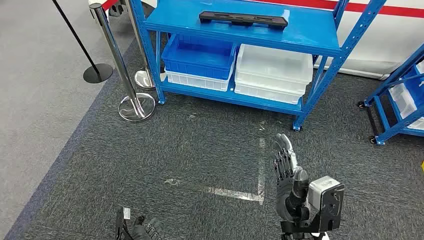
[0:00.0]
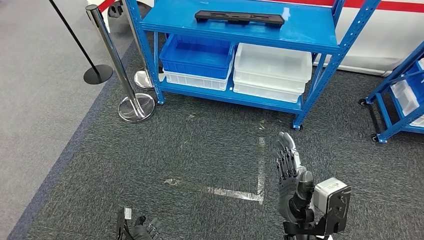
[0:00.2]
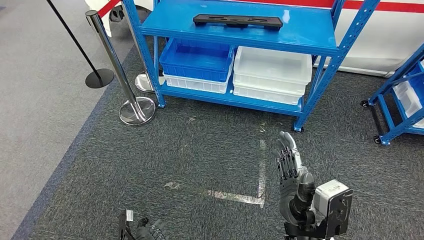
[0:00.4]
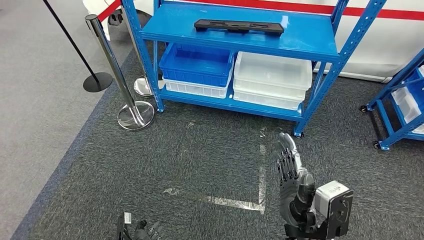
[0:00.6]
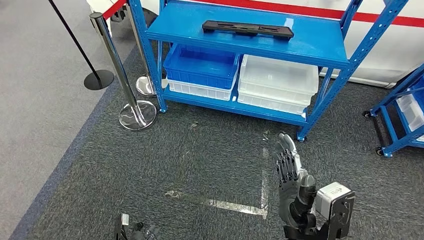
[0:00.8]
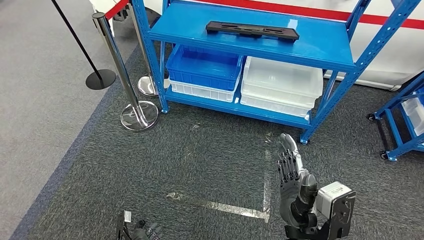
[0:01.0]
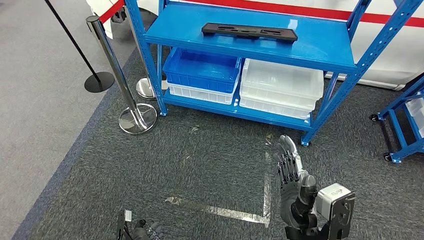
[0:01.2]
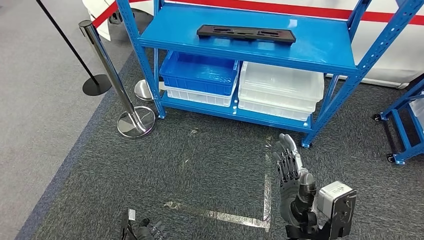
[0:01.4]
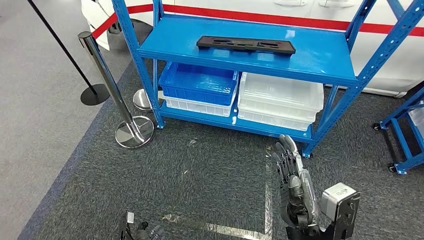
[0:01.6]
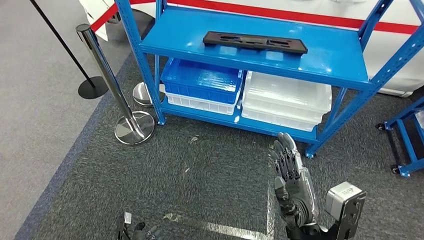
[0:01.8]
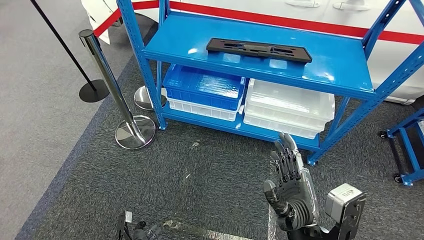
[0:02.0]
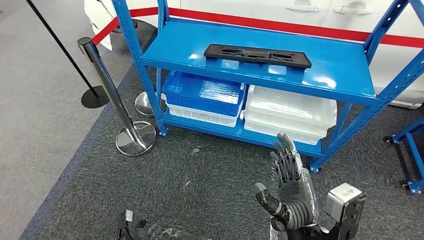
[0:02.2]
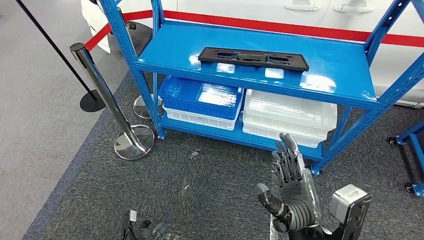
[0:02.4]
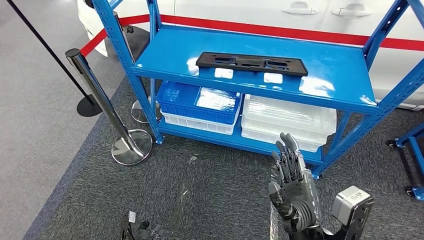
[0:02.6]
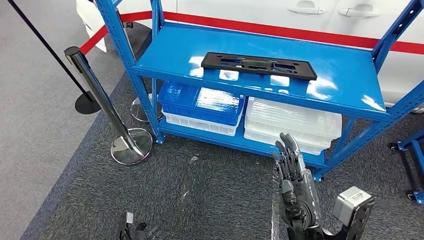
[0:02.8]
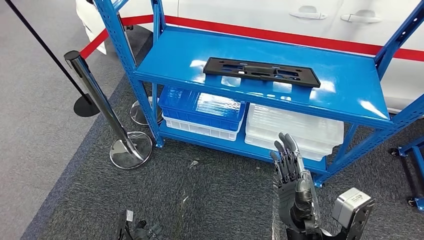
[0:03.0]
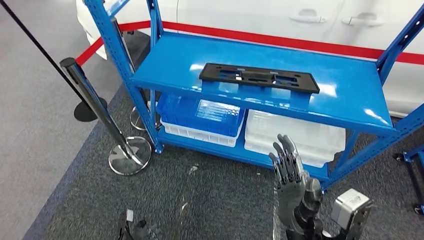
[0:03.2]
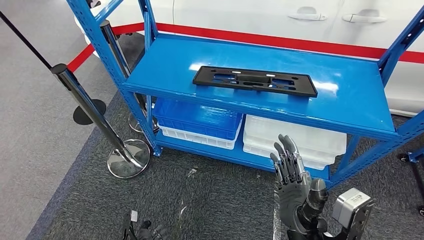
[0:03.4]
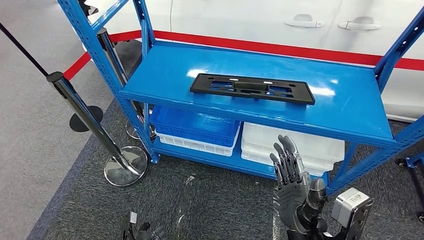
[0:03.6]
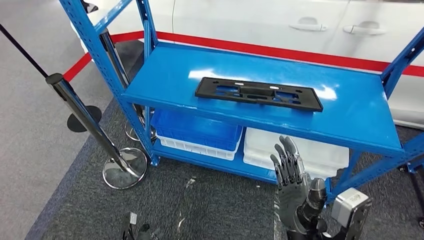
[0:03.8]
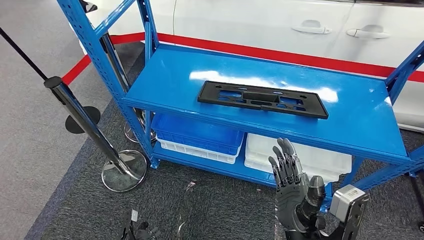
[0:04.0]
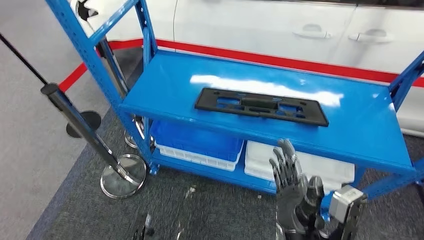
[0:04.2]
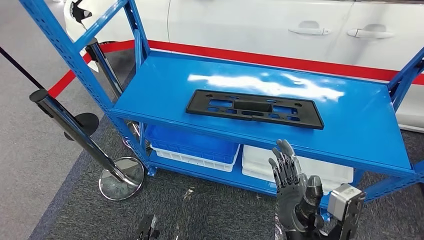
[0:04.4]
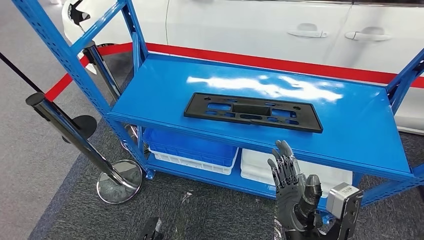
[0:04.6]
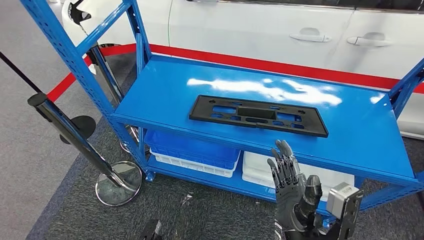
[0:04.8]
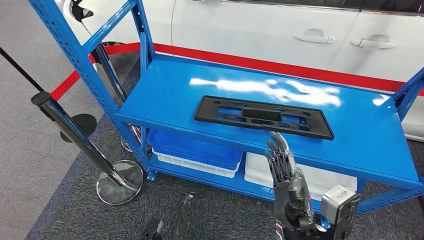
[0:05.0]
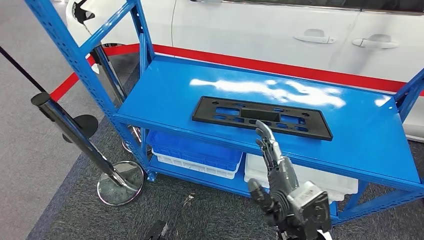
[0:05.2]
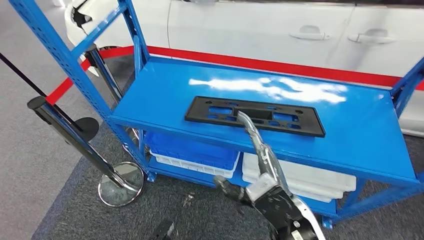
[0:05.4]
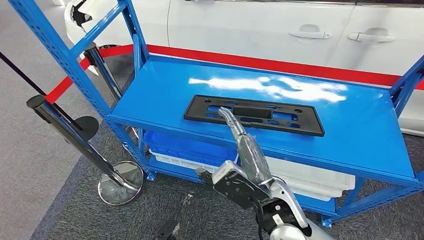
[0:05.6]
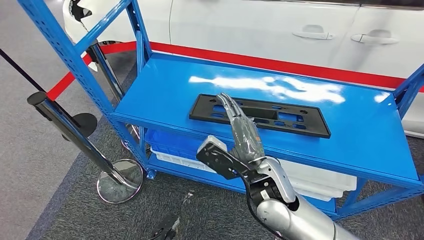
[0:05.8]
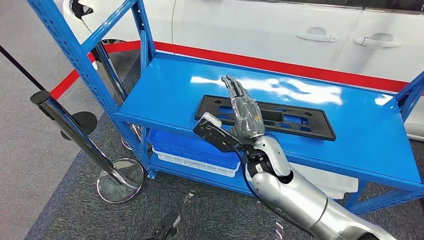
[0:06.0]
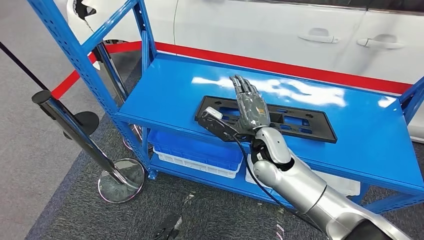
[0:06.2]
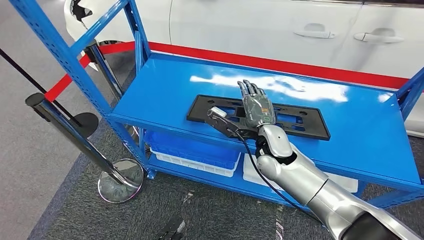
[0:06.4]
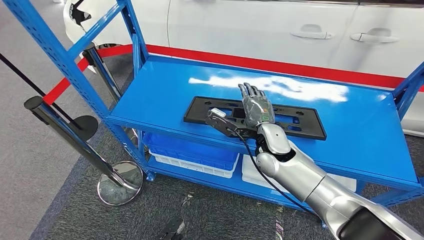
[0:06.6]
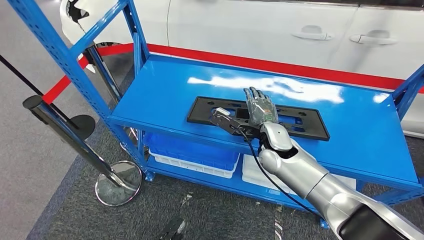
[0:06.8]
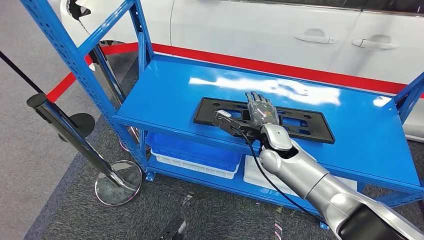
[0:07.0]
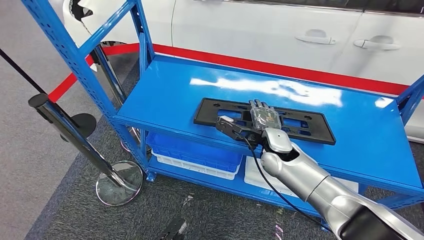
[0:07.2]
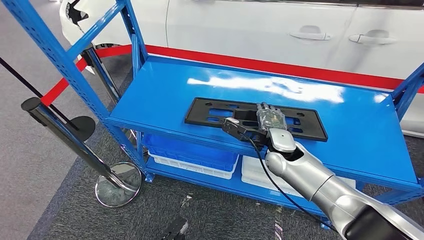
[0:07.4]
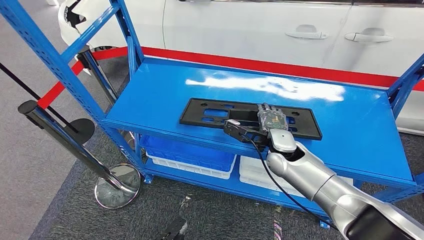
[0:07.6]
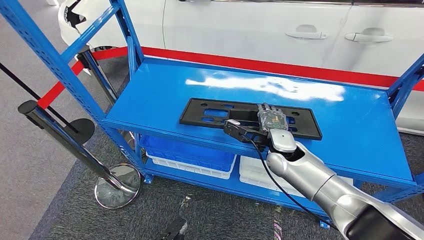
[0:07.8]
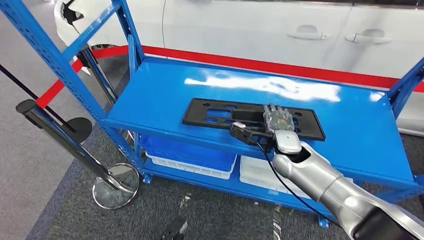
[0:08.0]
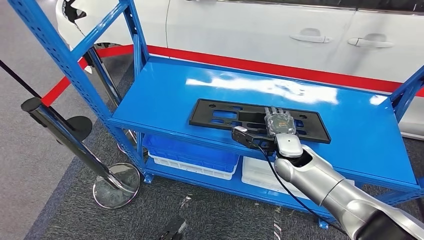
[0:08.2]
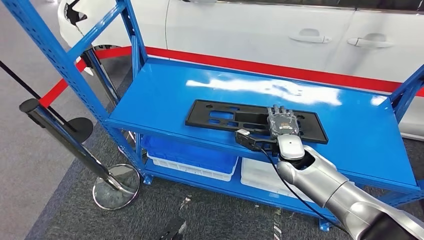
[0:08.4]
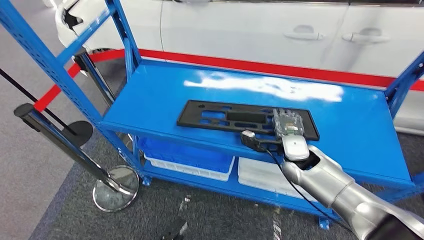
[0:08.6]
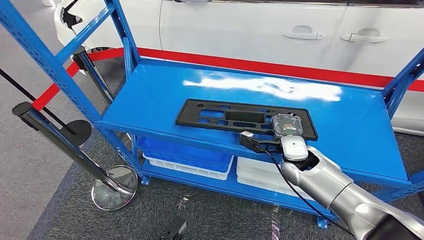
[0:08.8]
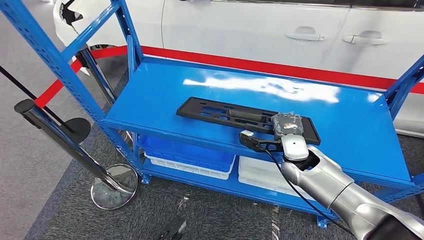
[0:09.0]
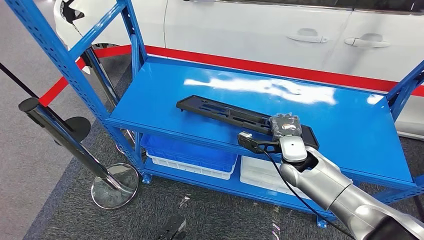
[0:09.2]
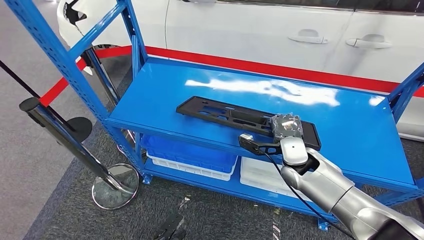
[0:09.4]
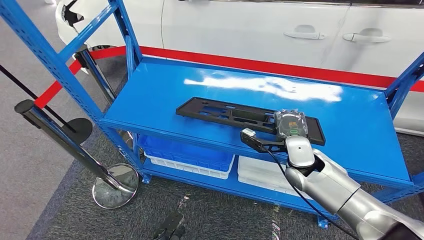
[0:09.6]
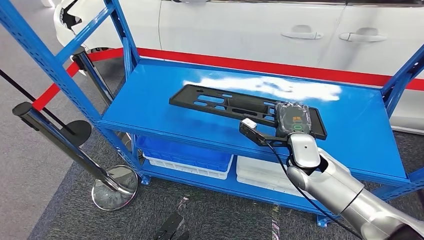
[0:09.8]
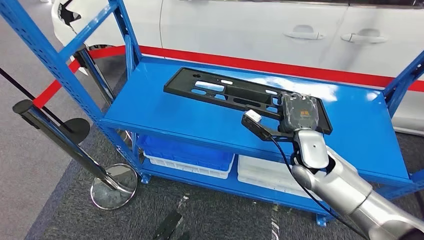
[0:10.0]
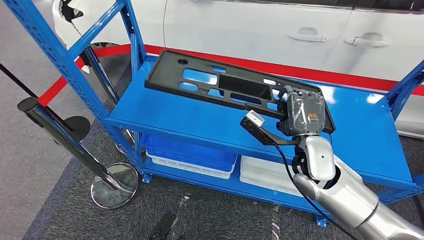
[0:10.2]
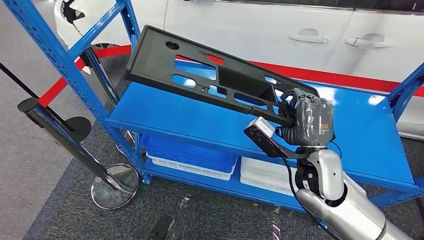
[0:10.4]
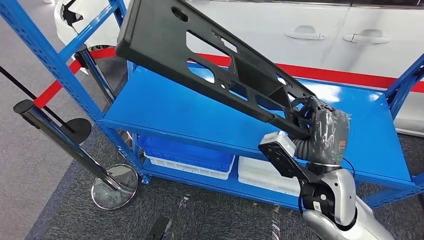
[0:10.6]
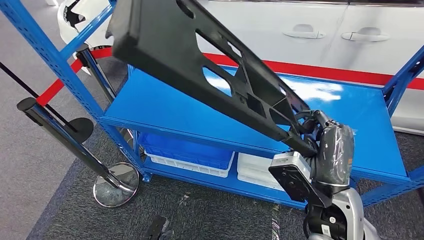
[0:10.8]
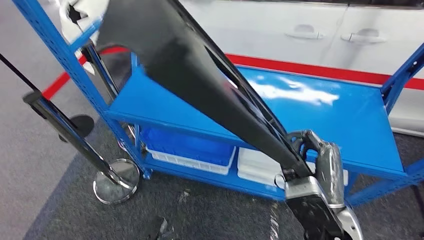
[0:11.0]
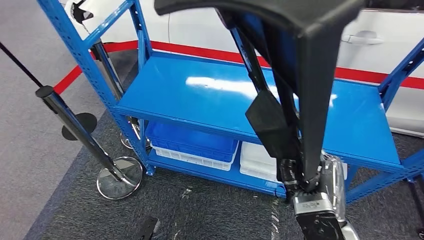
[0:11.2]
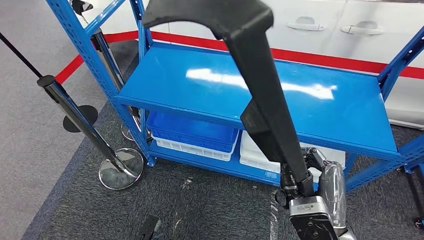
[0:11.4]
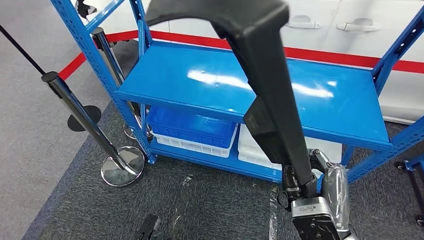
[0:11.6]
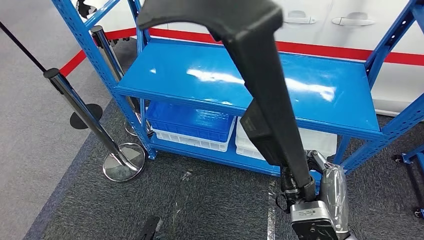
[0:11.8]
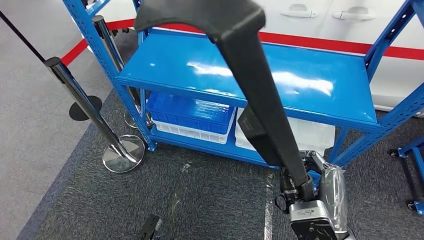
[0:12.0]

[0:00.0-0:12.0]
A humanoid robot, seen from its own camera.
Step, 0:00.0 to 0:10.2: Pick up the large material from the shelf.
0:07.6 to 0:09.0: There are only small adjustments of the hands.

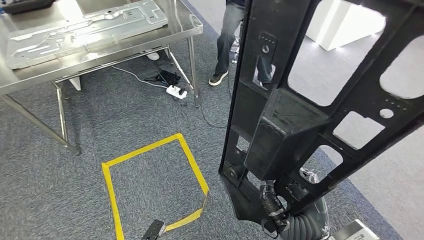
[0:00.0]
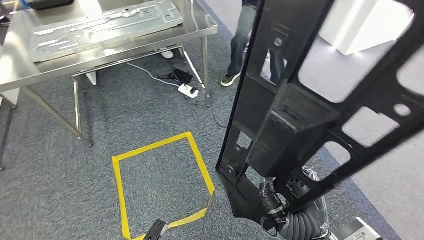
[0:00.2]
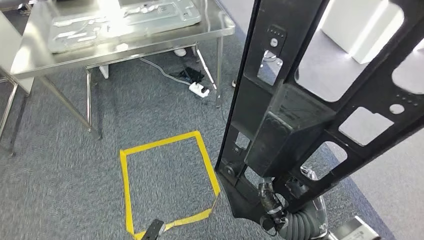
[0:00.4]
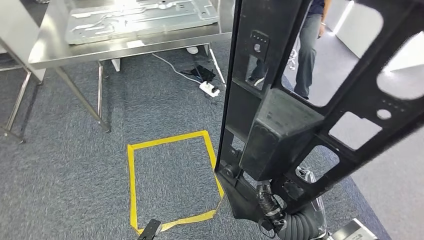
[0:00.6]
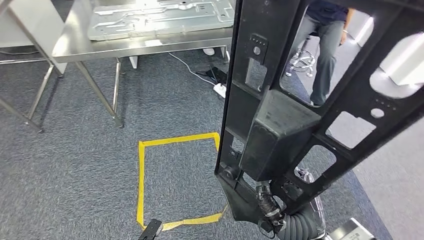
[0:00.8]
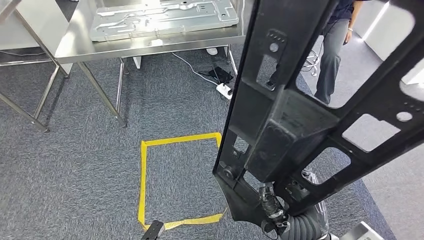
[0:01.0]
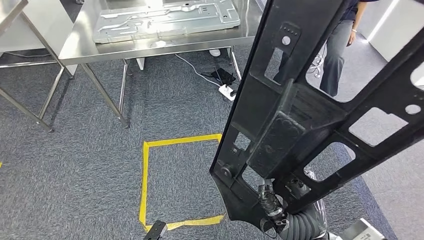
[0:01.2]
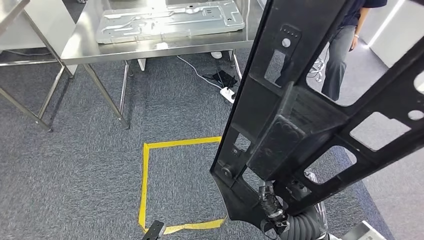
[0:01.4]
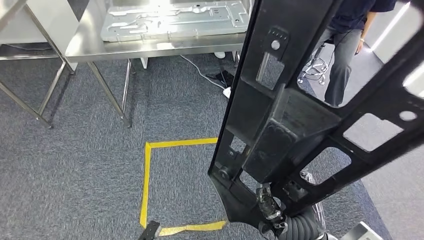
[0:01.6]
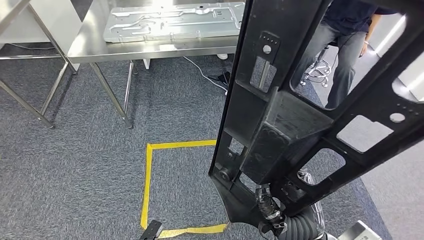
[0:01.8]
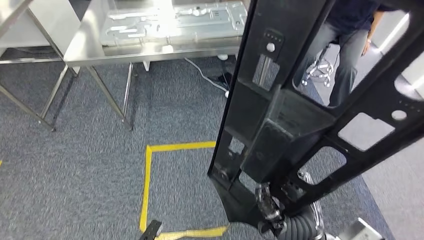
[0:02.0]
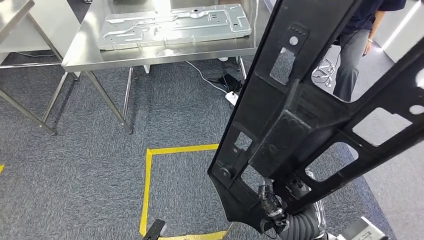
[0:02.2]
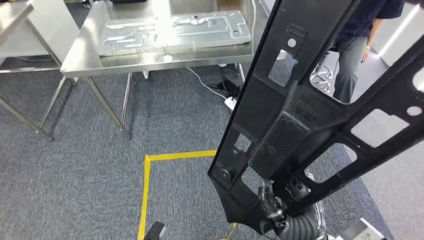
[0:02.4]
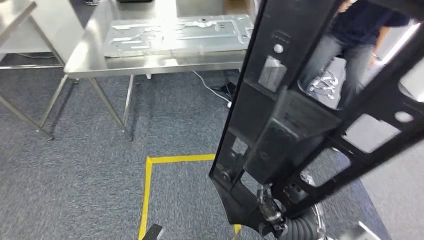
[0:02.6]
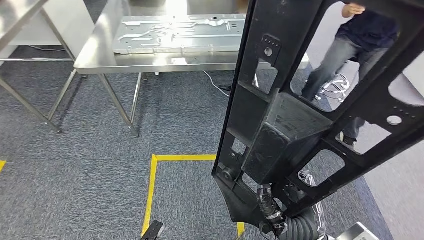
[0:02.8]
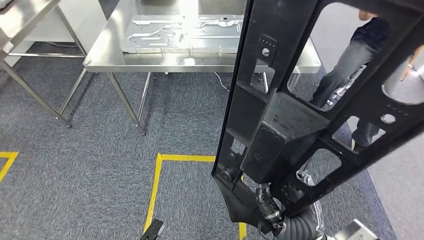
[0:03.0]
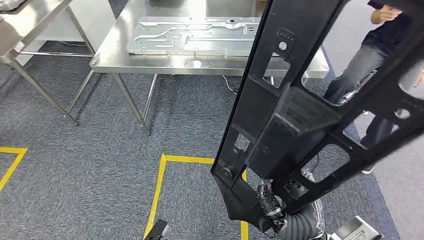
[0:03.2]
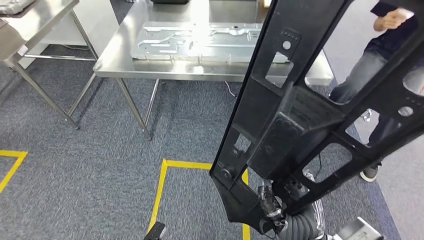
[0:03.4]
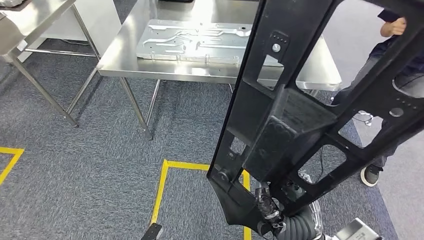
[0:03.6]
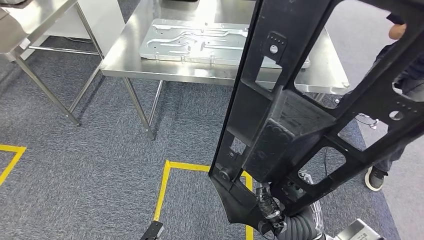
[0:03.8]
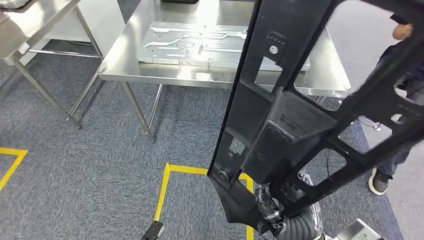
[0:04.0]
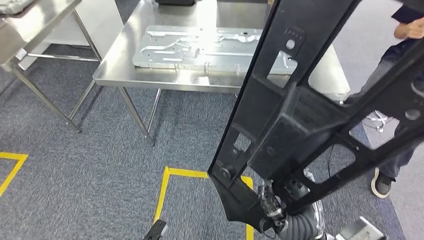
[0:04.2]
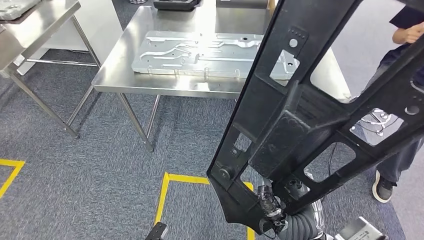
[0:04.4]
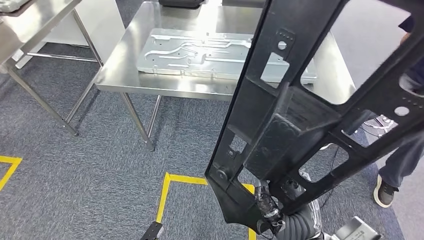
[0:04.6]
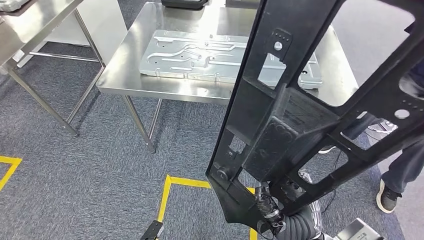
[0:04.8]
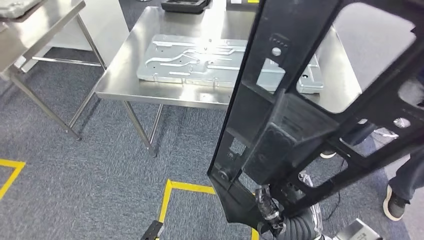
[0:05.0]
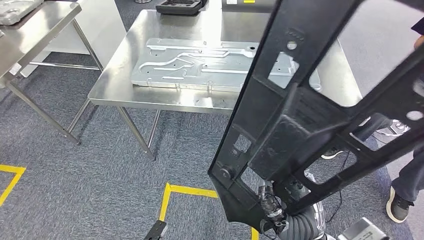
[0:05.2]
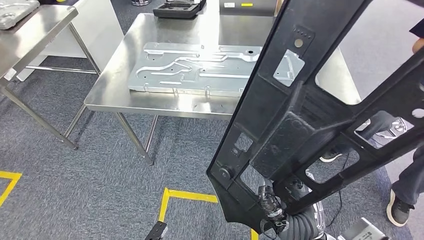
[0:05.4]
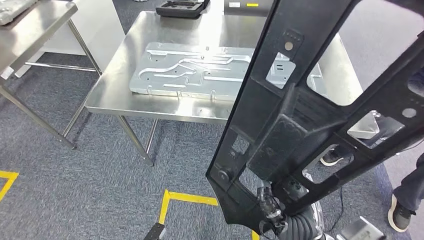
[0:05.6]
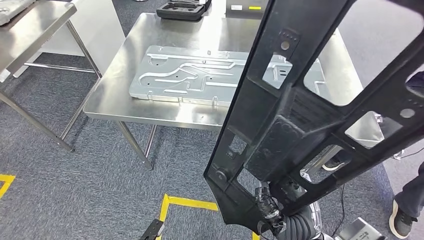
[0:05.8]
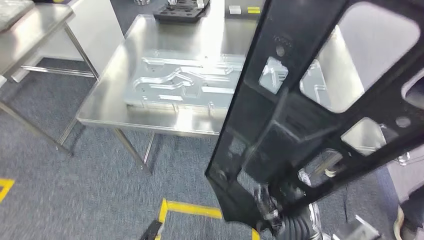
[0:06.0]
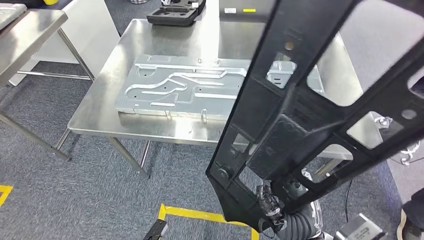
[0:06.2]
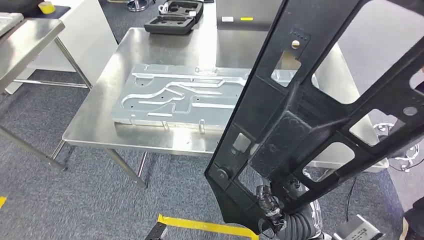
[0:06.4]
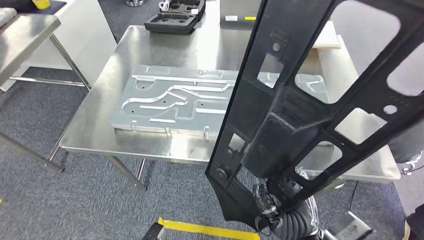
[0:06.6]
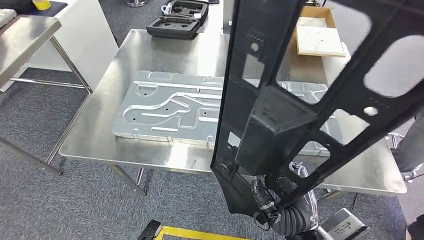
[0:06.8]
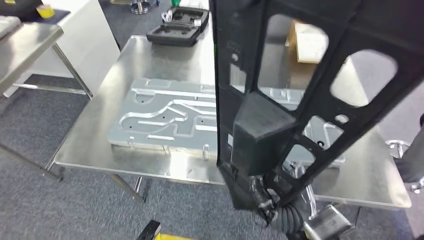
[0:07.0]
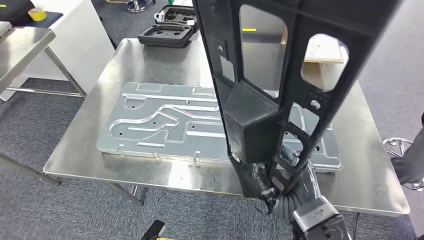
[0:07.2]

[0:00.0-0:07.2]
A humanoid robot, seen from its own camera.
Step, 0:00.0 to 0:03.2: Move the large material to the workbench.
